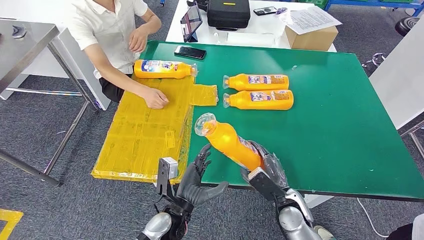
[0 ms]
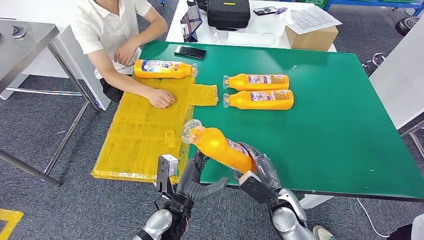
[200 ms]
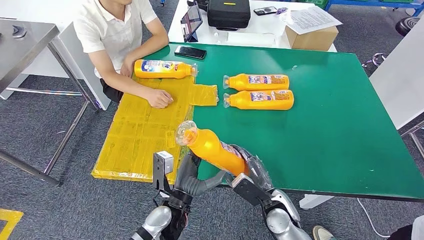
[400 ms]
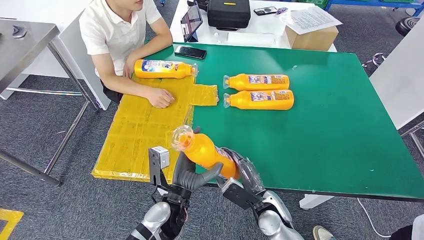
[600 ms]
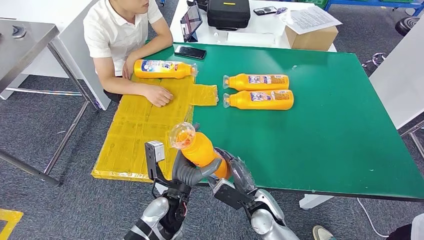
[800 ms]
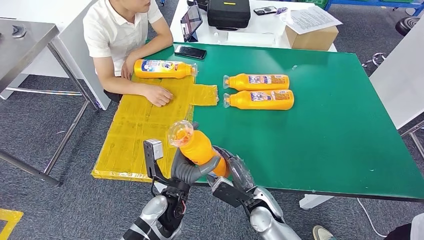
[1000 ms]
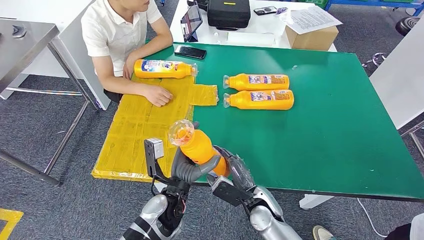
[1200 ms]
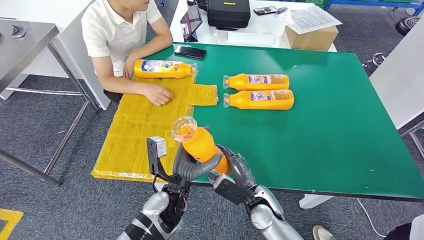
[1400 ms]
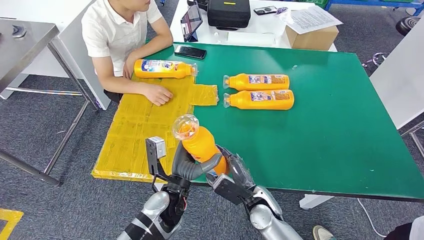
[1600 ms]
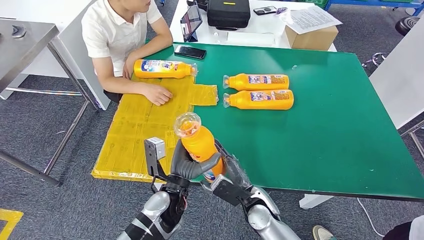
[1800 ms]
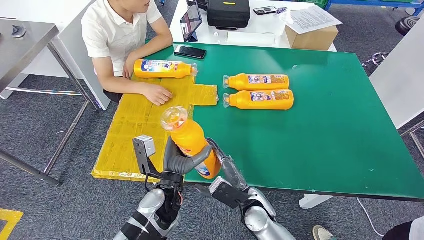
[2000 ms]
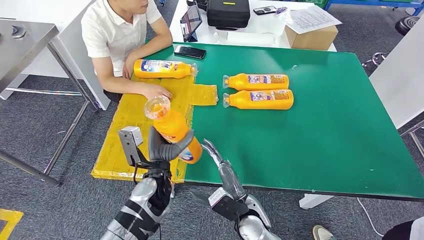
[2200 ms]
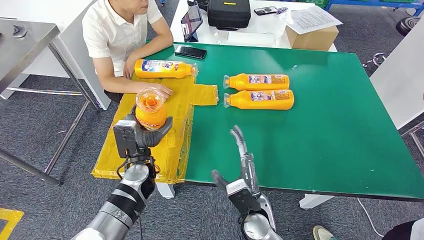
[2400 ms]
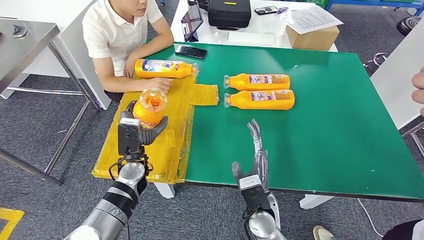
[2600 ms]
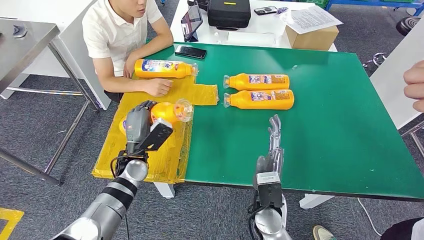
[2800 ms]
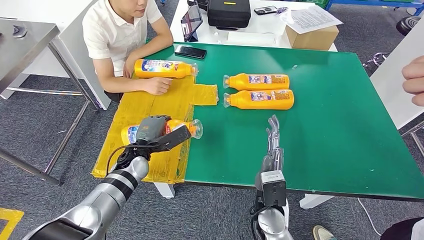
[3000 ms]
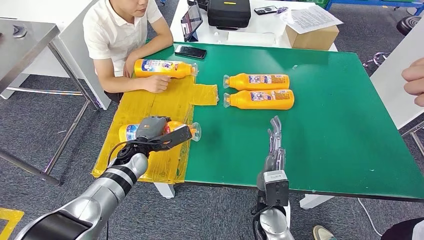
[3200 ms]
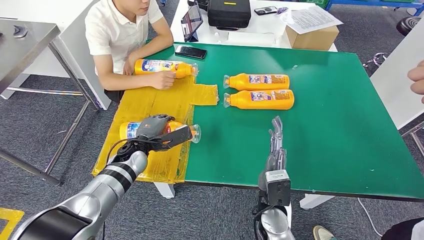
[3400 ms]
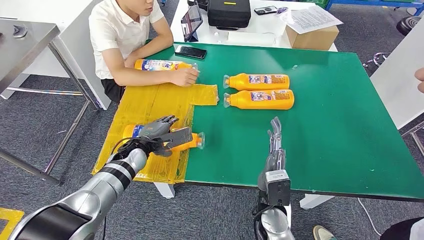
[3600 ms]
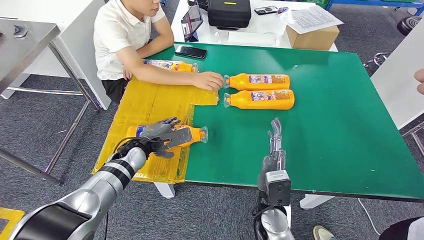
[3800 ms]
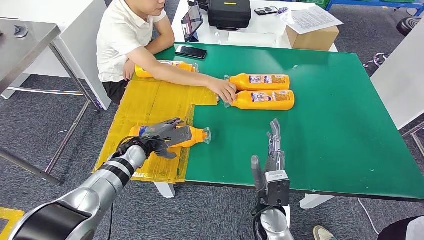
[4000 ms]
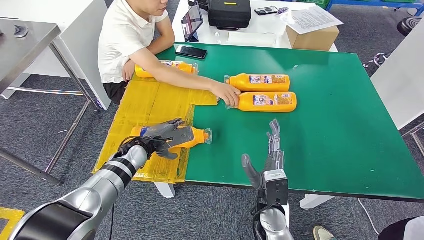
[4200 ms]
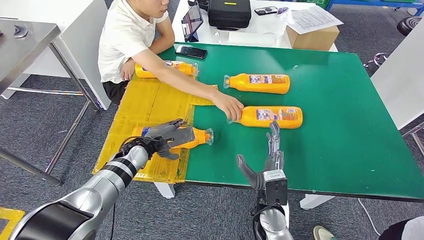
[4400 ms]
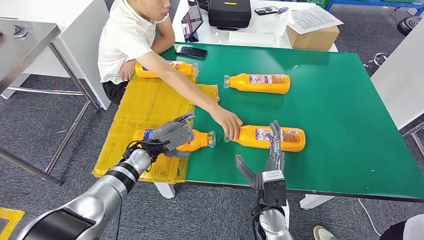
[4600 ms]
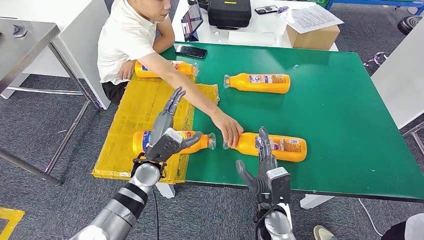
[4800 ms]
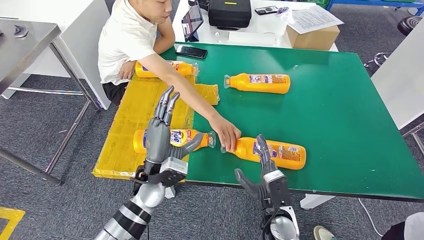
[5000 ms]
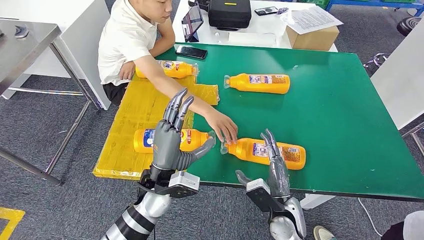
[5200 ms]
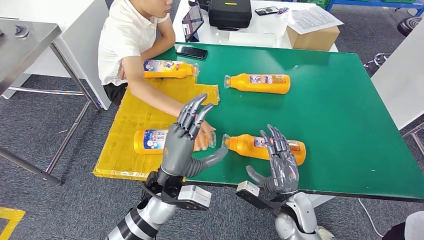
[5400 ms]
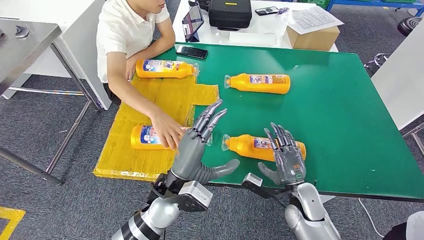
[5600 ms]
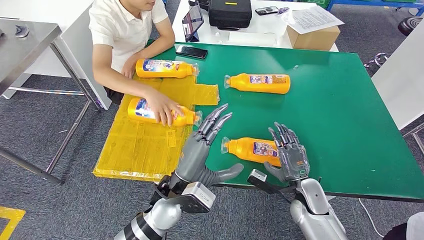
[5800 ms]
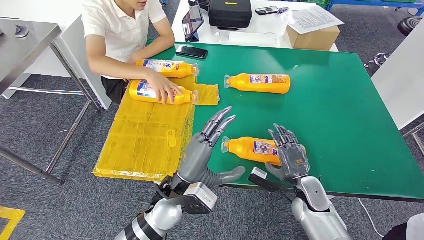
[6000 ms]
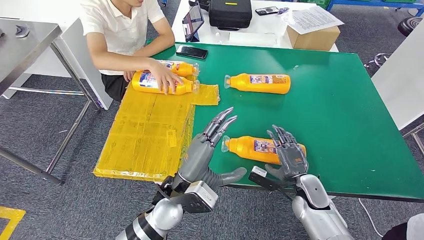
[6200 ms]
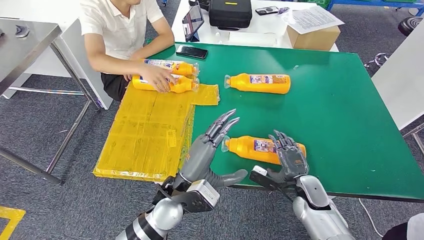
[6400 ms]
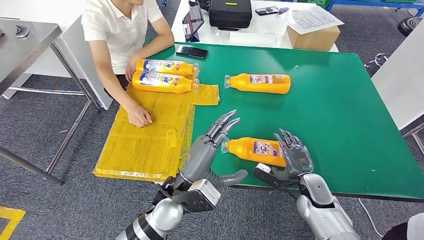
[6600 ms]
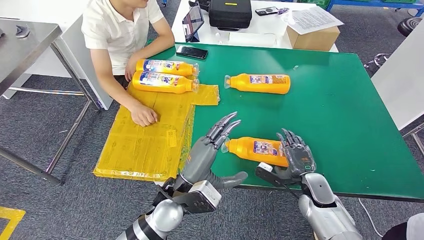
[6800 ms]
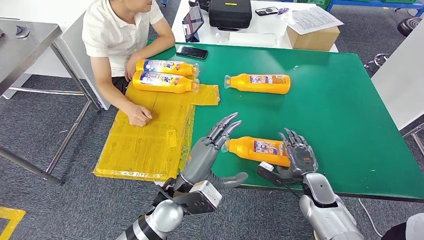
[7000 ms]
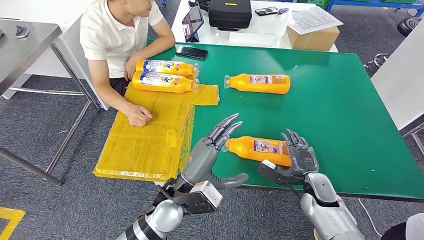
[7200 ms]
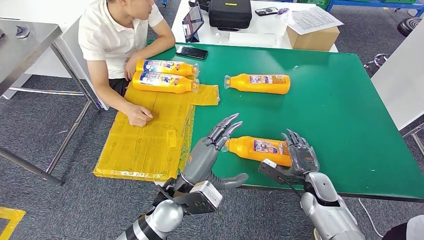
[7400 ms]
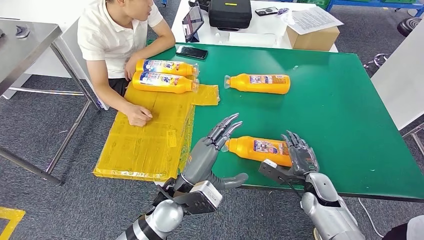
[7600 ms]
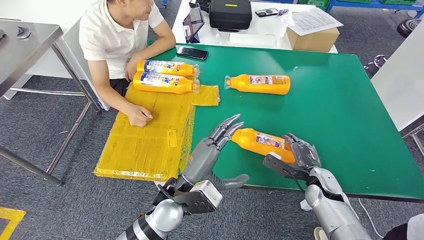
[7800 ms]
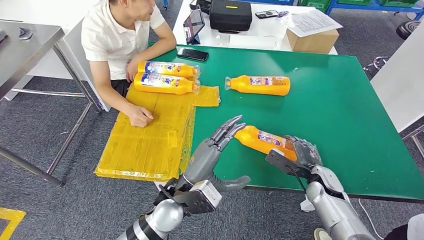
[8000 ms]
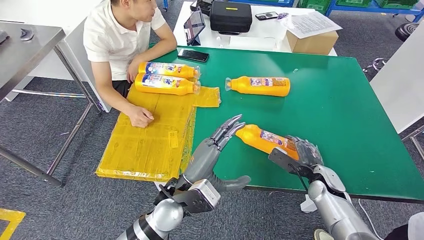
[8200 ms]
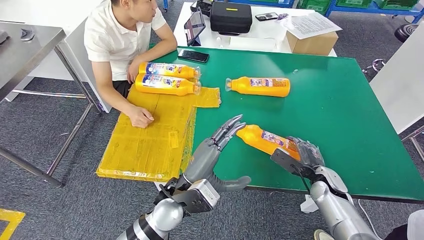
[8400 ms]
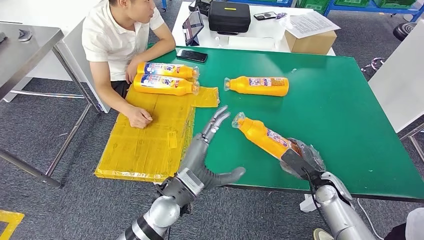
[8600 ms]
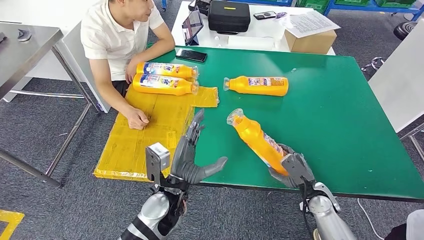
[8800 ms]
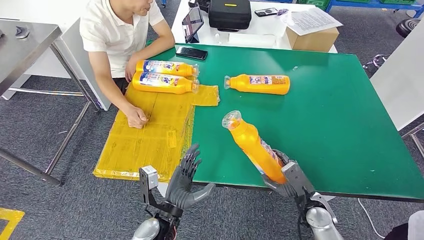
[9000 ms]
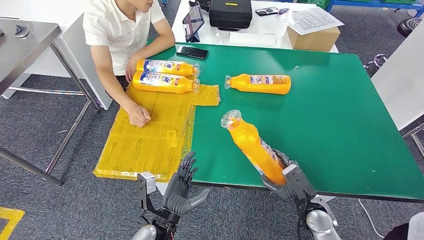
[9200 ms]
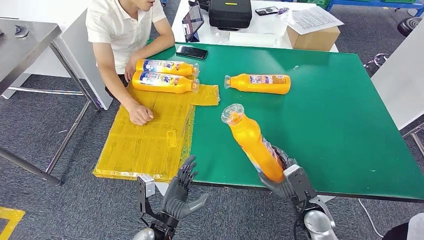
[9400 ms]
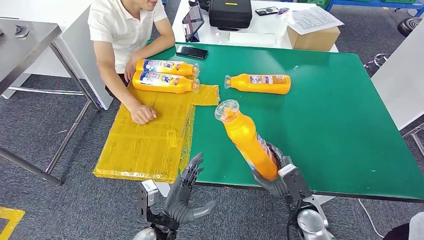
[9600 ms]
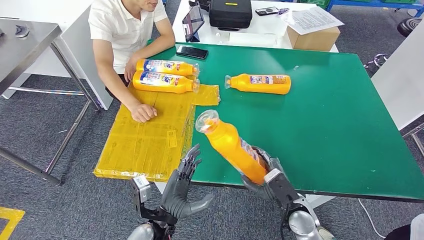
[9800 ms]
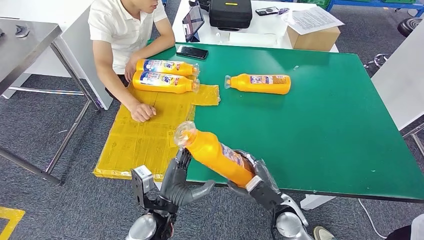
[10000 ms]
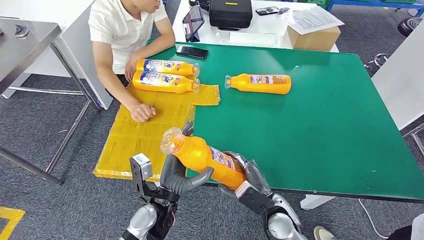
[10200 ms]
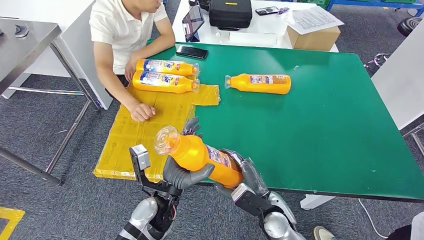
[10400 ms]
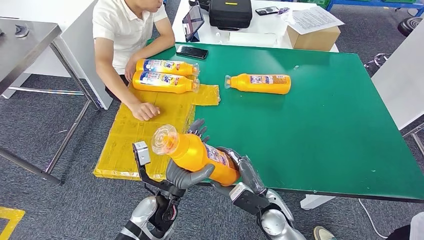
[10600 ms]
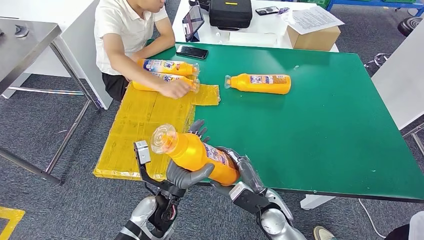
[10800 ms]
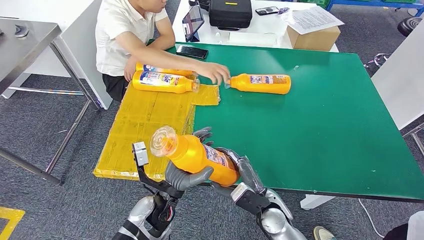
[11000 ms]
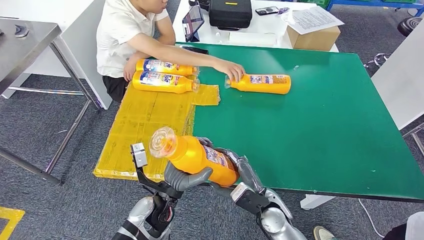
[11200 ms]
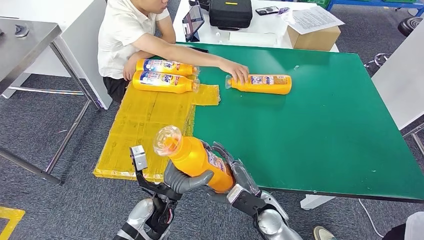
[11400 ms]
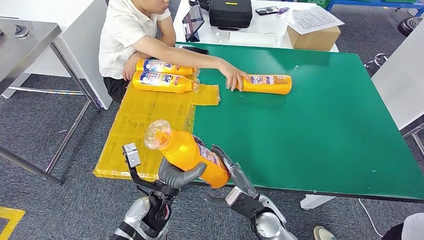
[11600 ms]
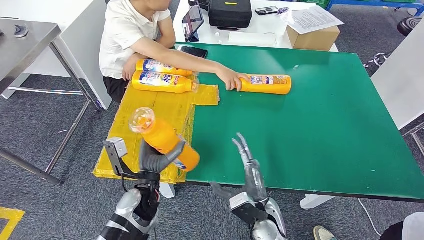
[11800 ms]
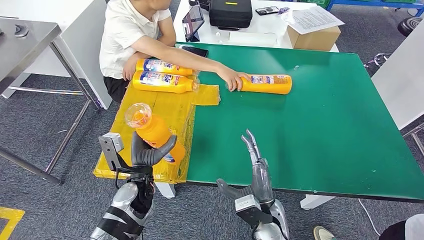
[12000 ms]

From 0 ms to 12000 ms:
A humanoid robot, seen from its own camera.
Step, from 600 ms to 3800 ms: Flip the fast-moving consumer goods bottle to the front side.
Step, from 4000 ms to 10000 ms: Pick up the fast-moving consumer goods bottle from the table.
From 0 ms to 1600 ms: The left hand changes place by approximately 5 cm. The right hand is displaced to the left by about 10 cm.
From 1600 ms to 3000 ms: The left hand is displaced to the left and forward by roughly 15 cm; the right hand shifts roughly 5 cm upward.
From 7600 ms to 9000 ms: The left hand shifts some 10 cm downward. The right hand shifts about 5 cm backward.
From 9000 ms to 10400 ms: The left hand changes place by roughly 5 cm. The right hand heads to the left, covering some 15 cm.
From 10400 ms to 12000 ms: The left hand heads to the left, covering roughly 5 cm.

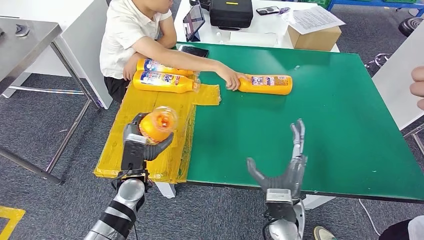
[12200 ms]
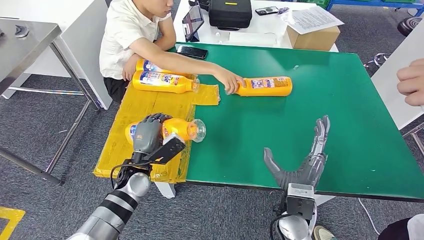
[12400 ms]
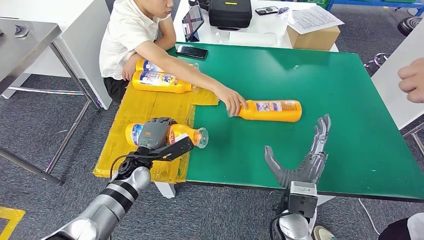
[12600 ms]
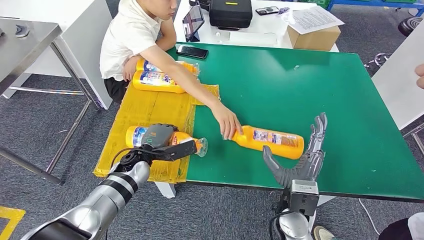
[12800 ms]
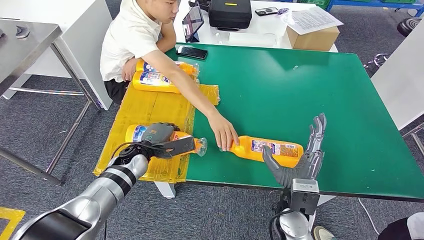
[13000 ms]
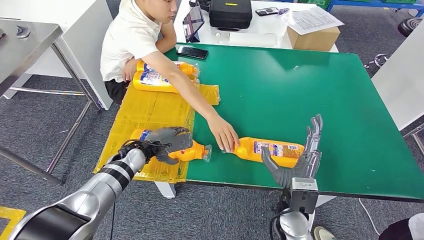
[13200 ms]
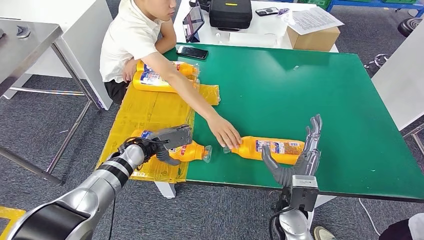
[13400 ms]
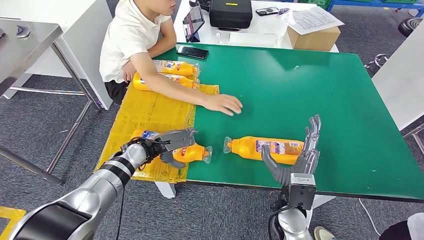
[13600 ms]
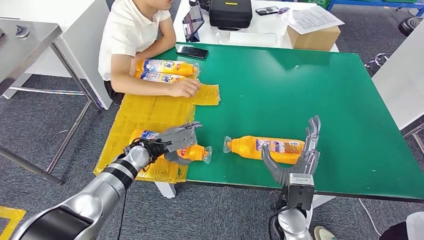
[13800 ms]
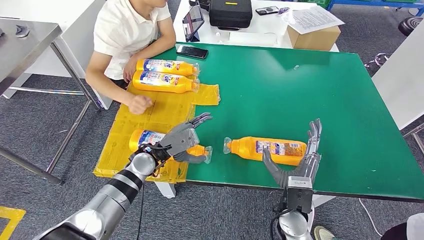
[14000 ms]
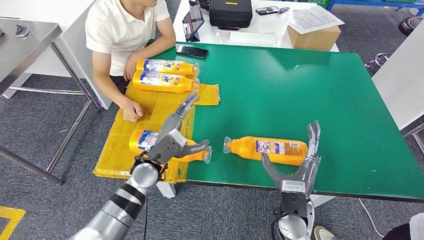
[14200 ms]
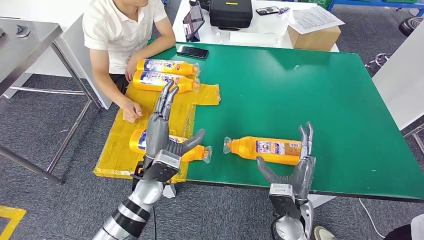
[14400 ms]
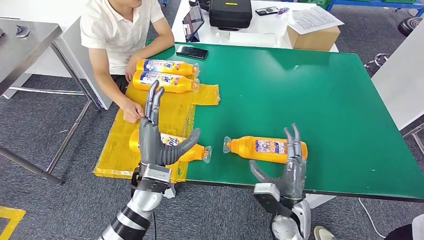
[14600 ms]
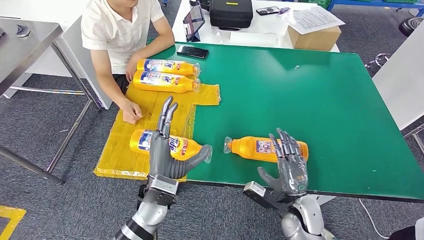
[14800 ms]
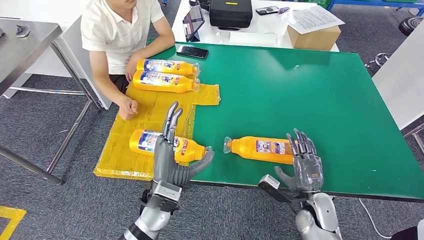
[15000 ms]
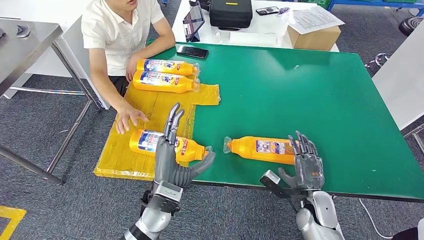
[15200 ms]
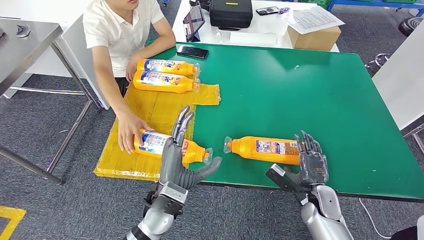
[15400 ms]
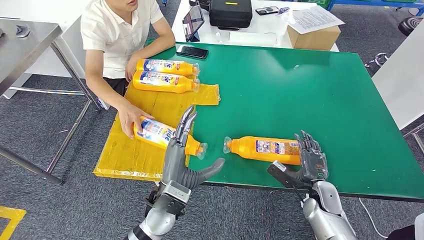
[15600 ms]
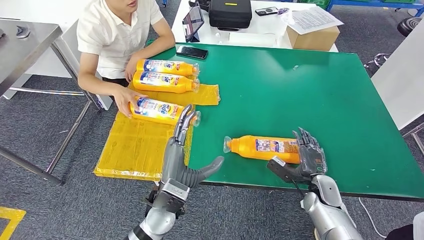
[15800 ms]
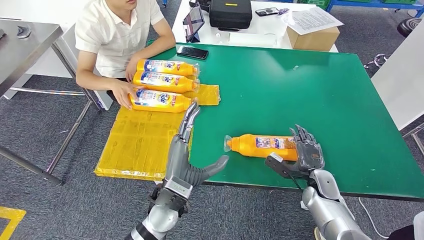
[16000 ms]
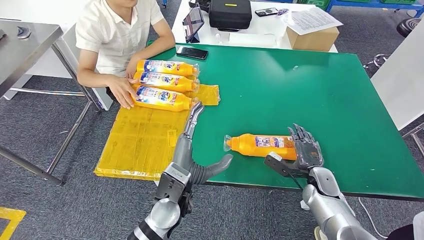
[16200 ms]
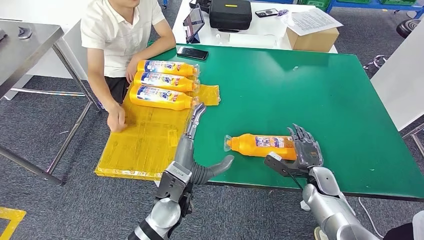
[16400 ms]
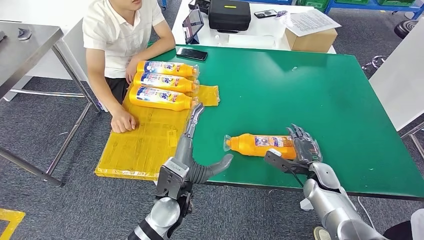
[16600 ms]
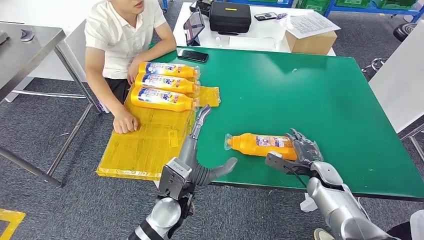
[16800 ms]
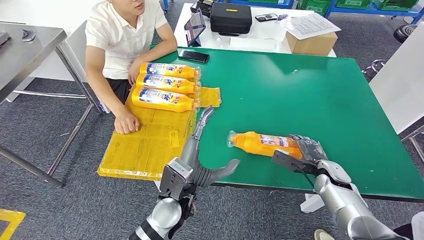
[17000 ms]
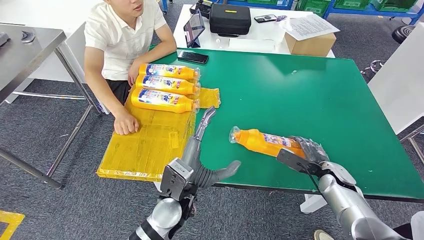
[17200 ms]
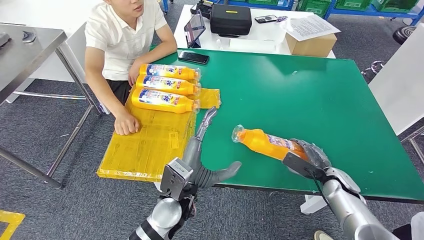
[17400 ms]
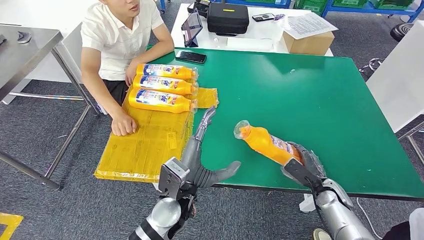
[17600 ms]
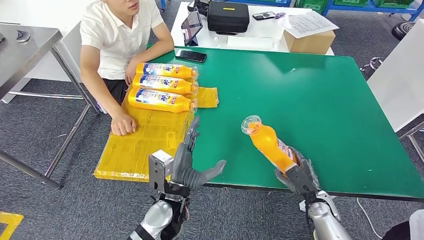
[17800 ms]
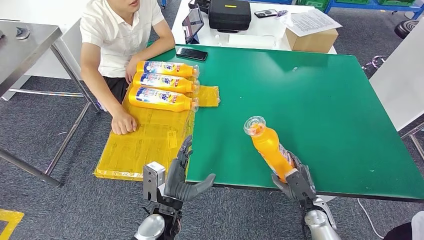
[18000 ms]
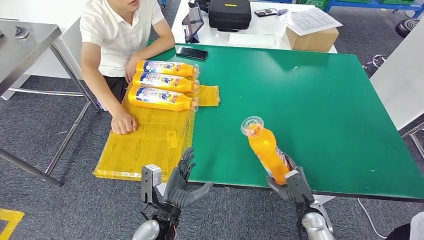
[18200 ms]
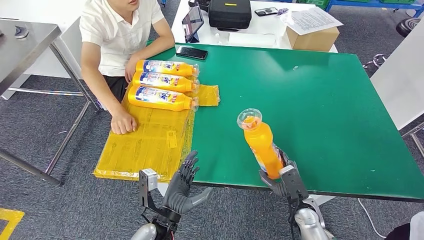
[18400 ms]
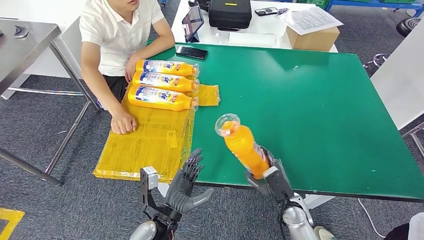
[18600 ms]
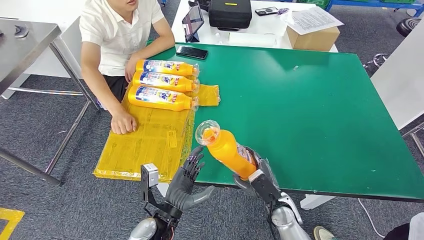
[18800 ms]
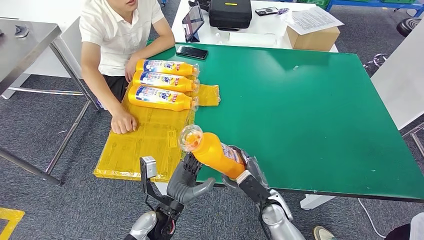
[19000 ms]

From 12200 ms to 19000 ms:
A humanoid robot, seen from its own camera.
Step, from 13200 ms to 18600 ms: Pick up the fast-moving consumer goods bottle from the table.
From 15000 ms to 16200 ms: The right hand is displaced forward by some 5 cm.
